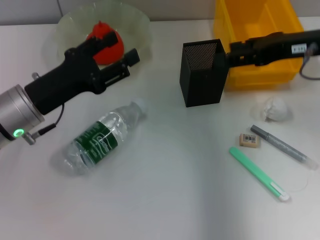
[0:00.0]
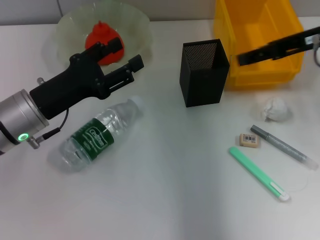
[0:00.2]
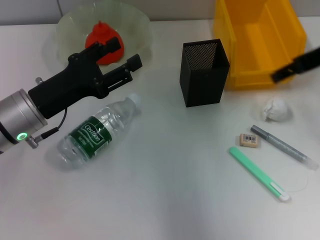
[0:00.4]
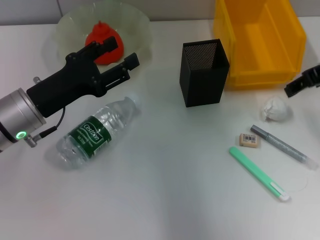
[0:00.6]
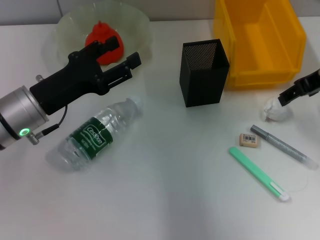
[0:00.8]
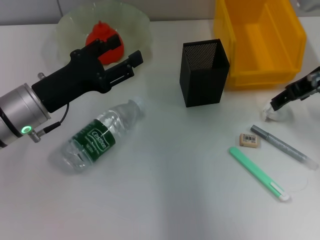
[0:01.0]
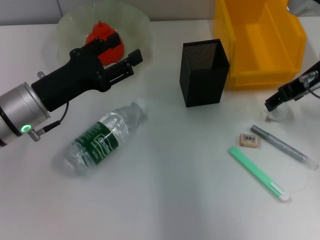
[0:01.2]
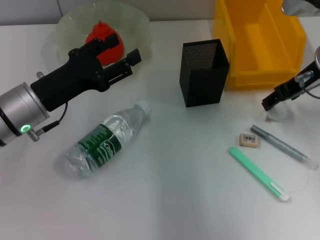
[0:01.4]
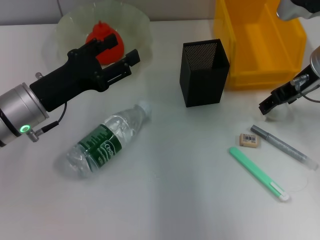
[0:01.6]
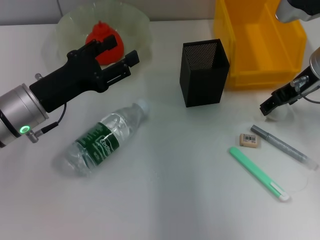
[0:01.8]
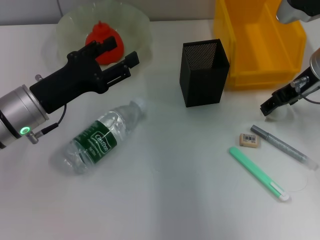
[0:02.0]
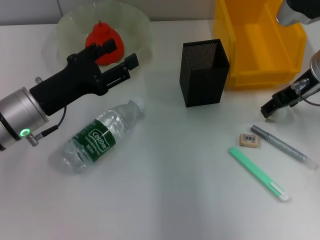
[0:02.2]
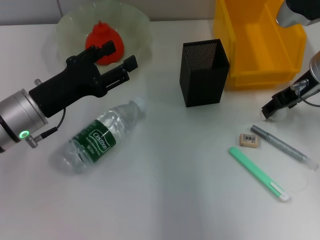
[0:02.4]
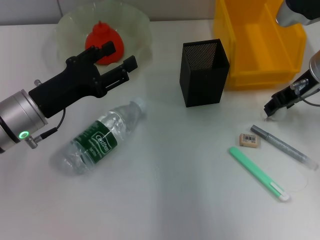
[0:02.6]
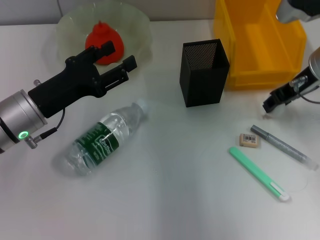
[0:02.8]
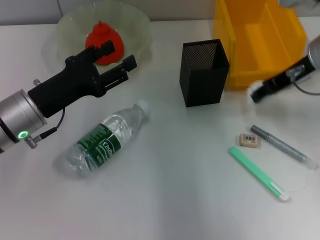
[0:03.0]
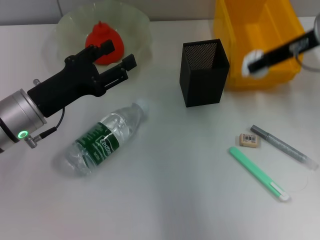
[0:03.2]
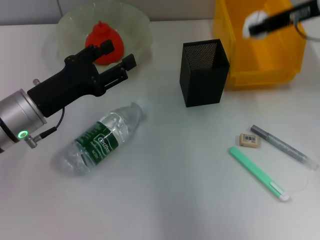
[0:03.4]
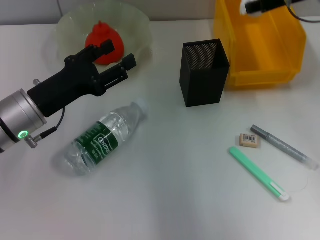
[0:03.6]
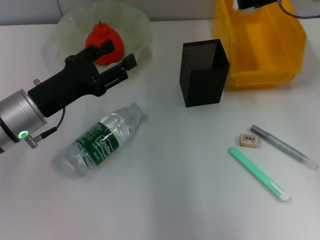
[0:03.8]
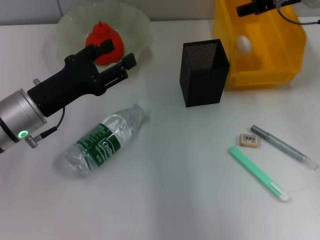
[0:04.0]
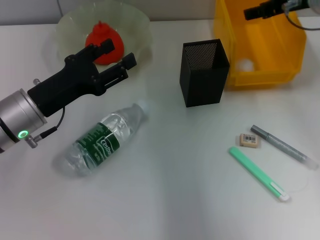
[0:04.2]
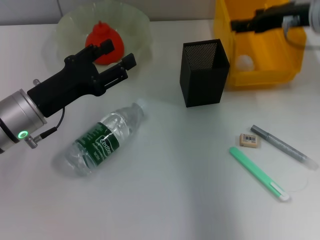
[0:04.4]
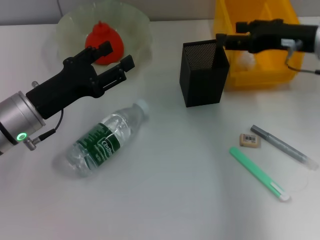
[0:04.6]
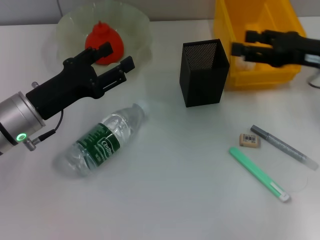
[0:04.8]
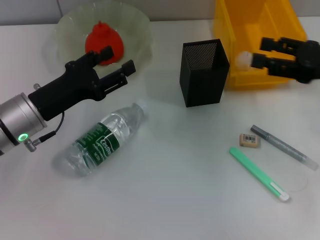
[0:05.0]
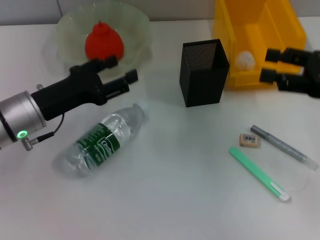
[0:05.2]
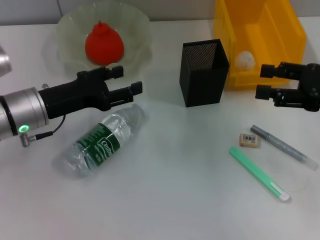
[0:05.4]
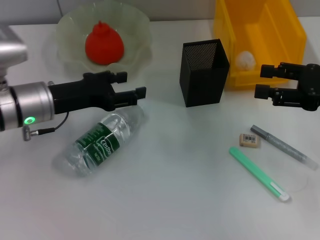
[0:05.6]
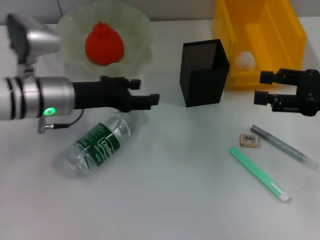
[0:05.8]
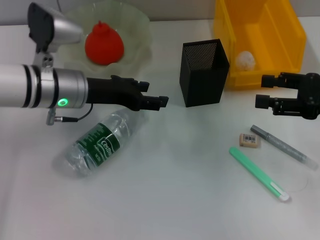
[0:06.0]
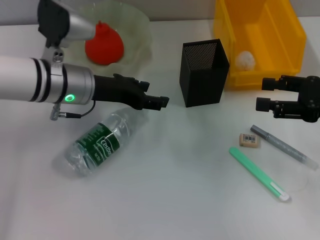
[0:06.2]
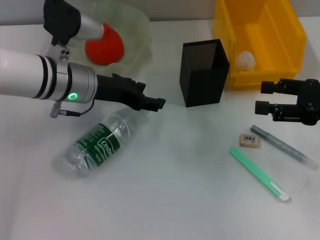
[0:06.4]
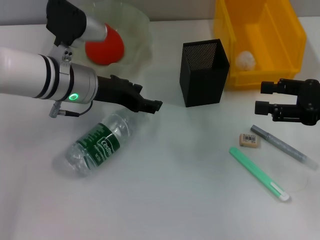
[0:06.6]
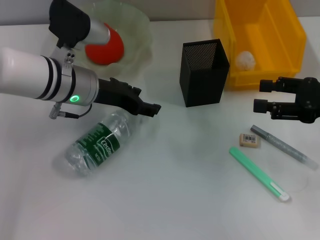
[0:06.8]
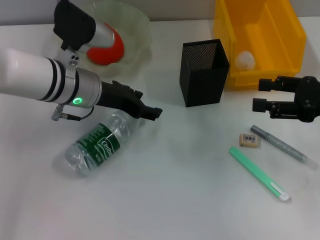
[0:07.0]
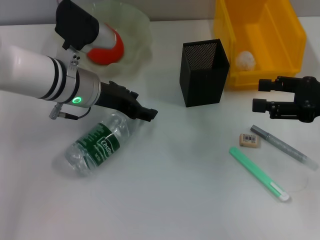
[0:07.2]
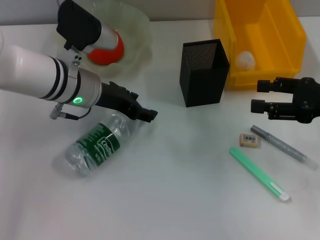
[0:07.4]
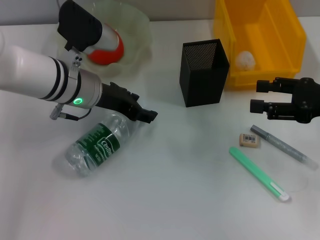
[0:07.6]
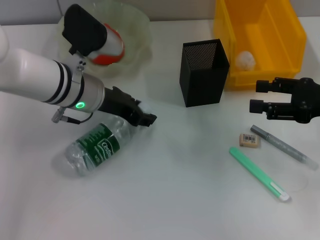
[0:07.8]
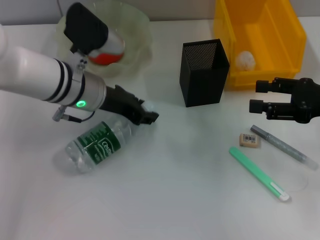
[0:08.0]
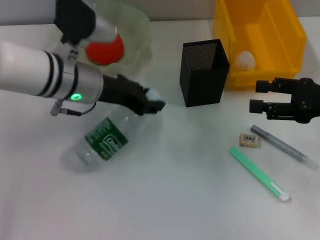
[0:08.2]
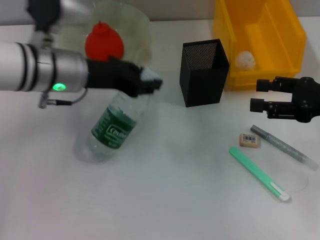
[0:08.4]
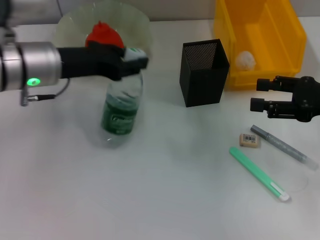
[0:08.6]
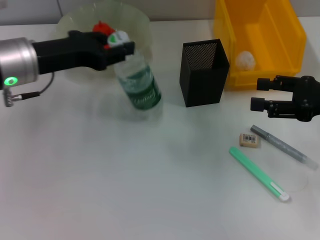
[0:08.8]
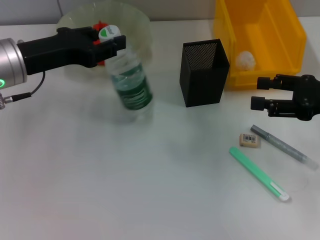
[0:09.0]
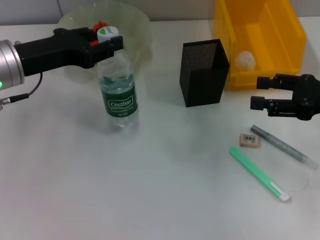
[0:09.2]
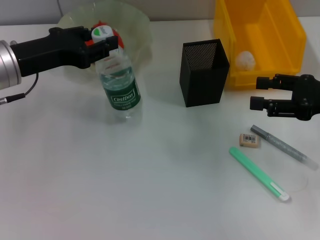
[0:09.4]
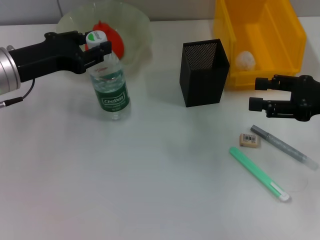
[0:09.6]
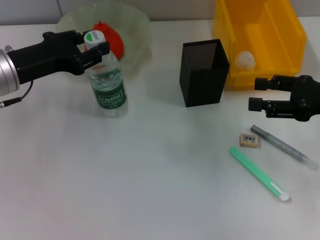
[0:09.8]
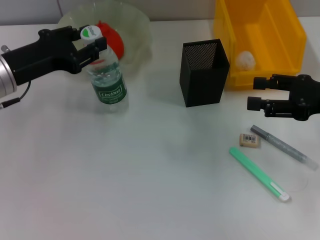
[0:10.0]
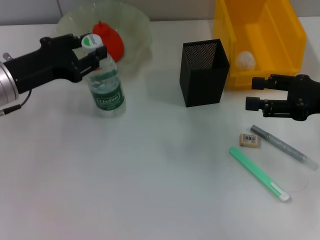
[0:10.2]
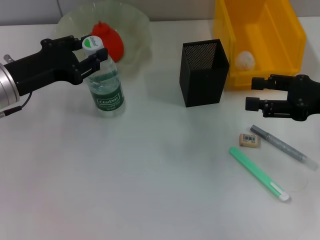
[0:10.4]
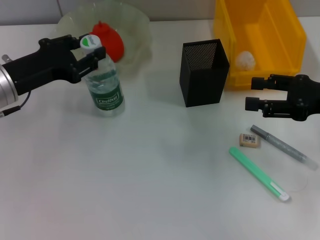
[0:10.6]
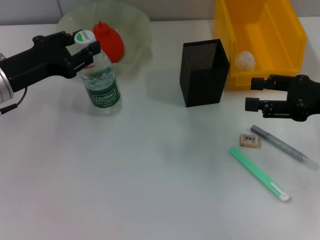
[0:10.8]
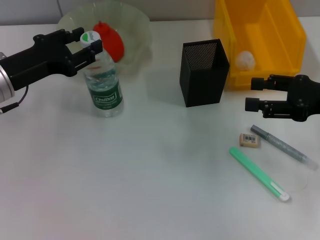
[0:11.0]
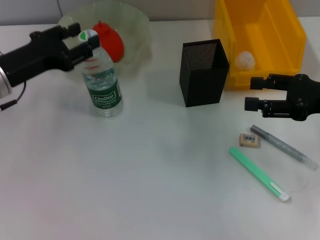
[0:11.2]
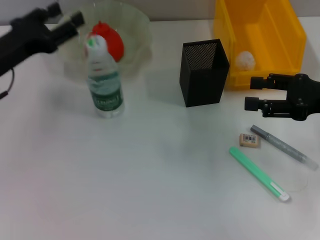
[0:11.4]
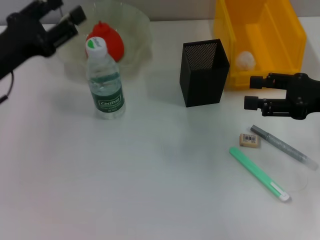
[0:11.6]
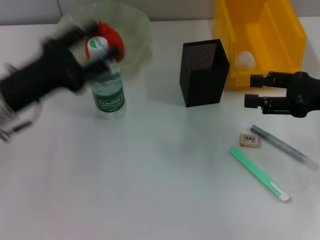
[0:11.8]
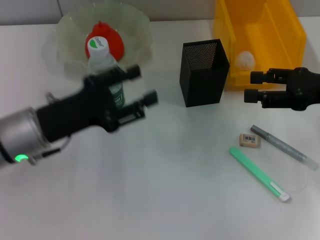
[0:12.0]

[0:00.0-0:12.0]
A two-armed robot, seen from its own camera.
Step, 0:00.0 to 0:02.6: Grab the paper ball with the right hand.
Step, 0:02.8 to 0:04.8: Place the paper ball into the trash can with the right hand.
Step, 0:05.0 to 0:07.8: Grab the water bottle with the left hand.
Step, 0:08.0 to 0:11.2: Place the water bottle on the table with the left hand.
0:00.0 to 0:01.6: The right gripper shifts by about 5 cm.
0:01.6 to 0:03.0: The right gripper closes.
0:03.0 to 0:04.4: The right gripper opens up.
0:04.4 to 0:06.0: The left gripper moves forward and to the right, some 10 cm; the right gripper moves backward, to the right and downward, about 15 cm.
0:06.0 to 0:07.6: The grippers stay close to where they were, moving slightly.
0:07.6 to 0:09.0: The left gripper goes approximately 10 cm to the left and upward, and closes up.
0:09.0 to 0:10.4: There are only small adjustments of the grippers.
0:10.4 to 0:12.0: The left gripper ends up some 5 cm from where it was.

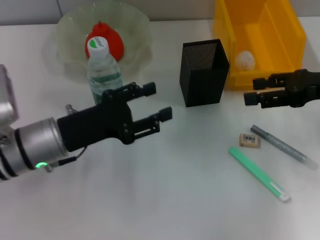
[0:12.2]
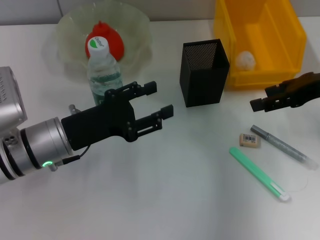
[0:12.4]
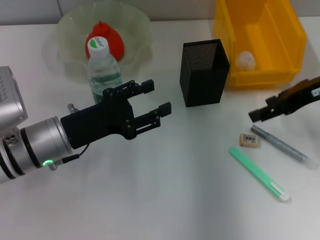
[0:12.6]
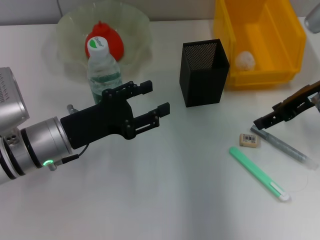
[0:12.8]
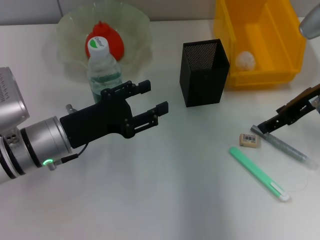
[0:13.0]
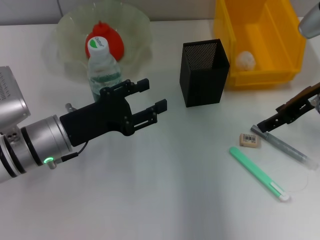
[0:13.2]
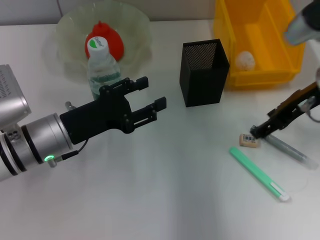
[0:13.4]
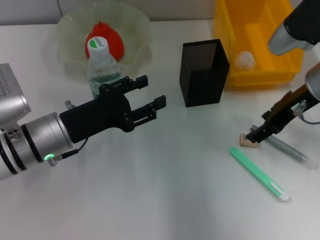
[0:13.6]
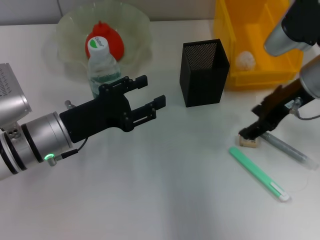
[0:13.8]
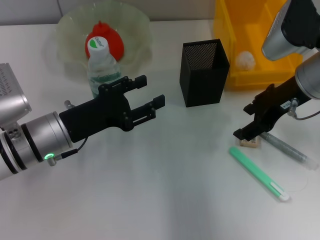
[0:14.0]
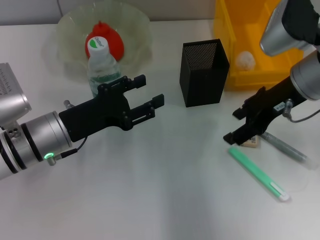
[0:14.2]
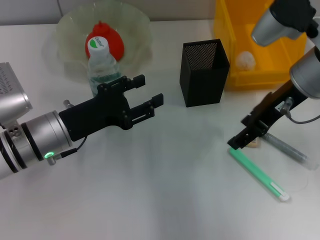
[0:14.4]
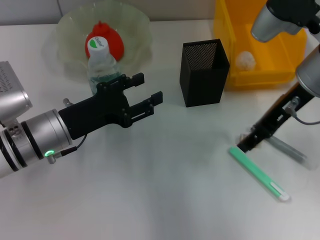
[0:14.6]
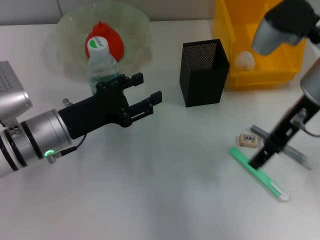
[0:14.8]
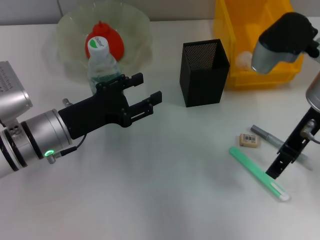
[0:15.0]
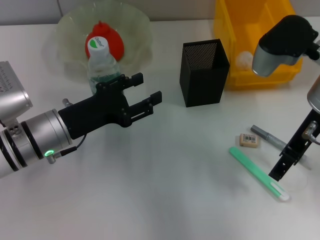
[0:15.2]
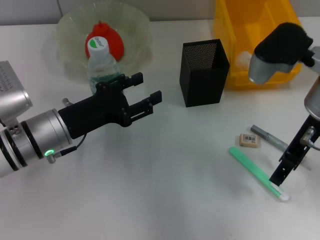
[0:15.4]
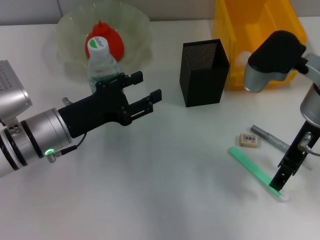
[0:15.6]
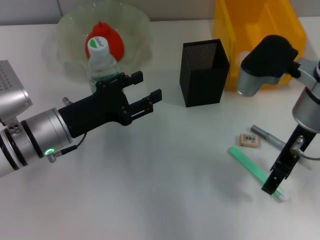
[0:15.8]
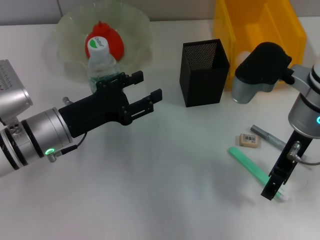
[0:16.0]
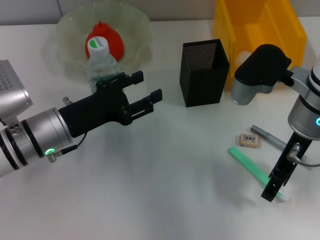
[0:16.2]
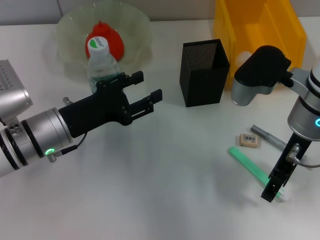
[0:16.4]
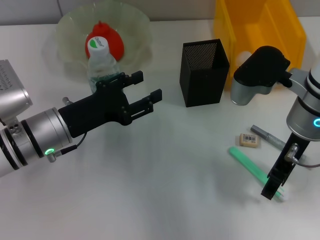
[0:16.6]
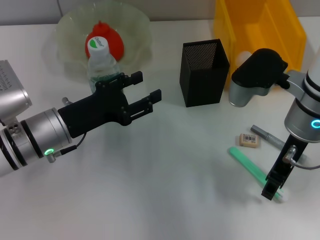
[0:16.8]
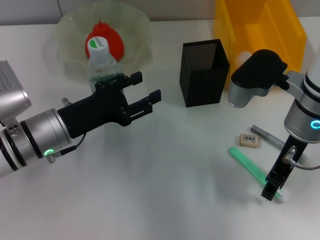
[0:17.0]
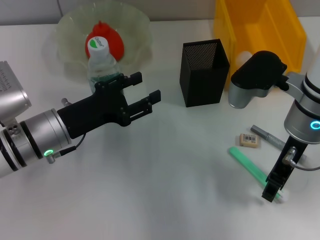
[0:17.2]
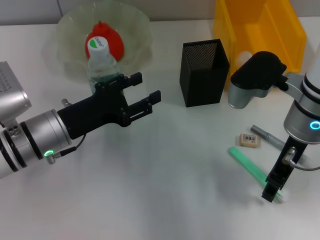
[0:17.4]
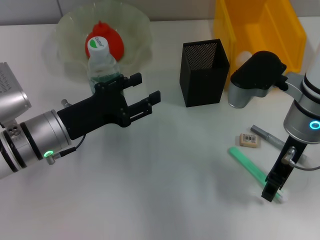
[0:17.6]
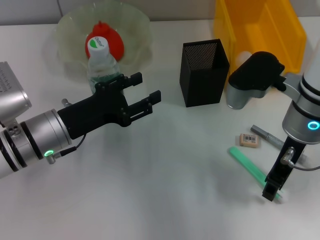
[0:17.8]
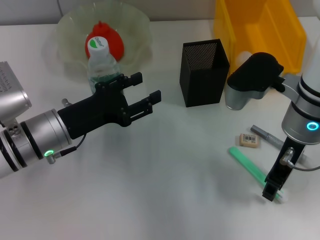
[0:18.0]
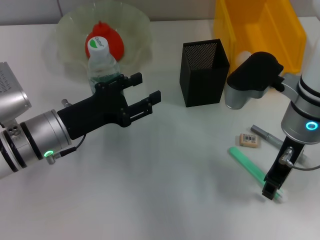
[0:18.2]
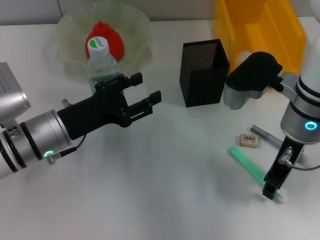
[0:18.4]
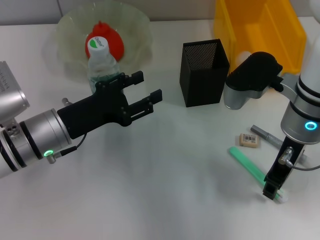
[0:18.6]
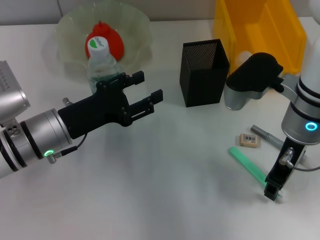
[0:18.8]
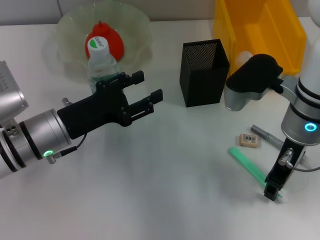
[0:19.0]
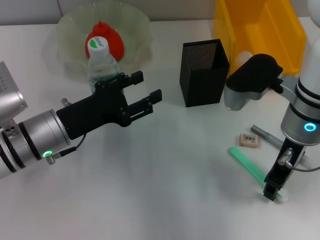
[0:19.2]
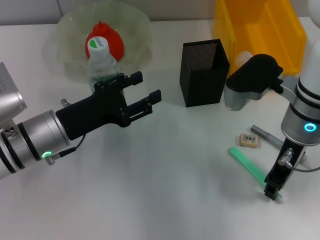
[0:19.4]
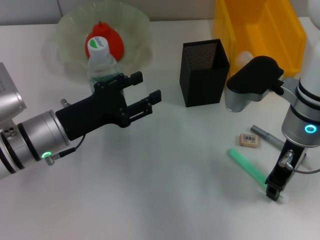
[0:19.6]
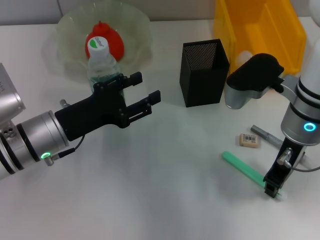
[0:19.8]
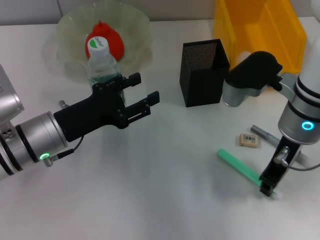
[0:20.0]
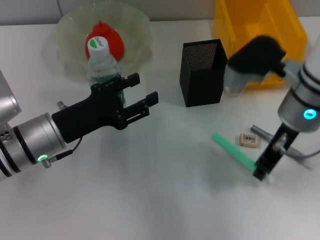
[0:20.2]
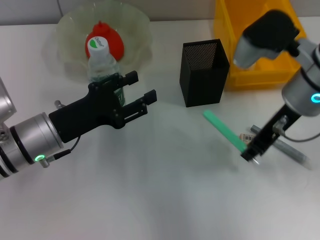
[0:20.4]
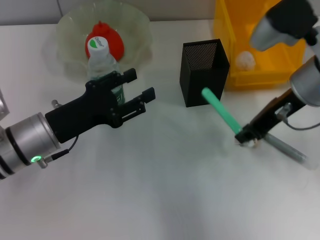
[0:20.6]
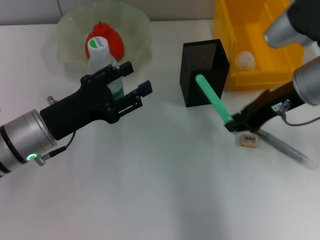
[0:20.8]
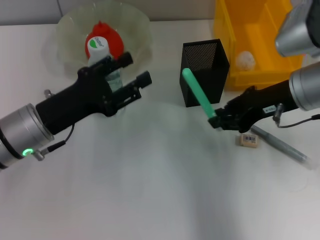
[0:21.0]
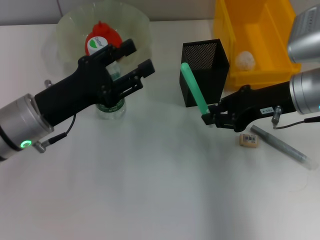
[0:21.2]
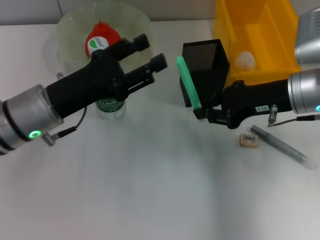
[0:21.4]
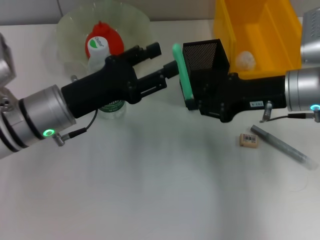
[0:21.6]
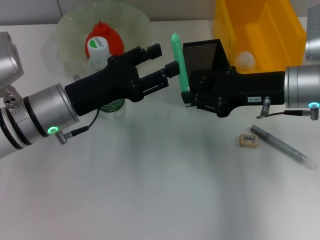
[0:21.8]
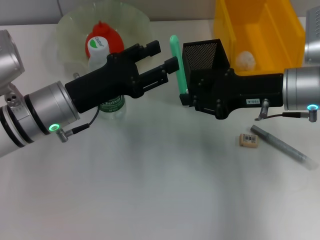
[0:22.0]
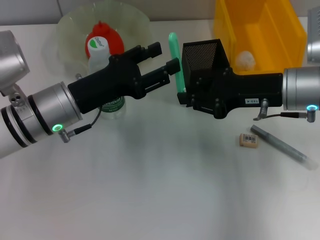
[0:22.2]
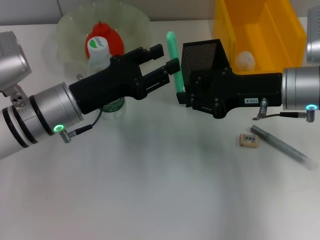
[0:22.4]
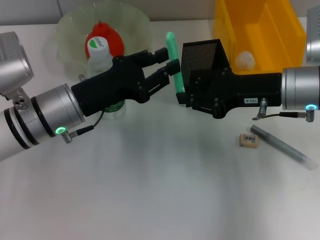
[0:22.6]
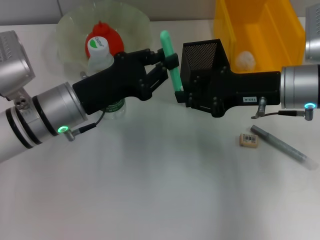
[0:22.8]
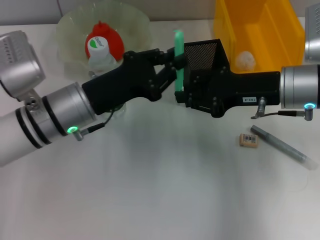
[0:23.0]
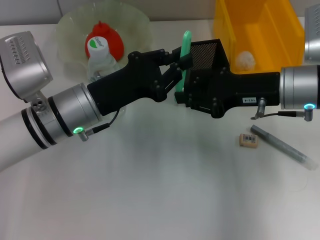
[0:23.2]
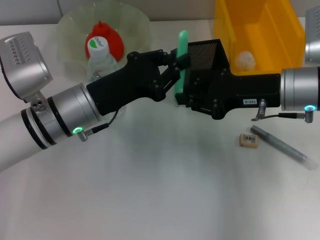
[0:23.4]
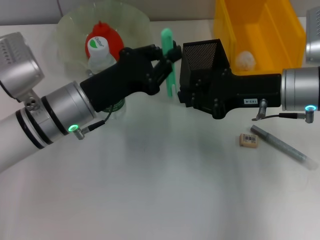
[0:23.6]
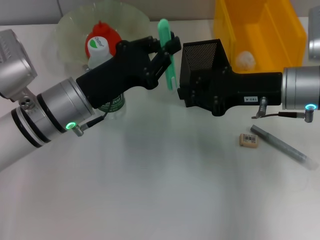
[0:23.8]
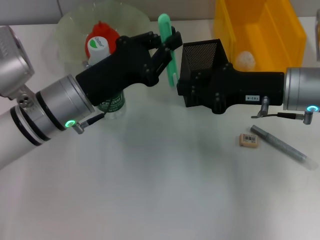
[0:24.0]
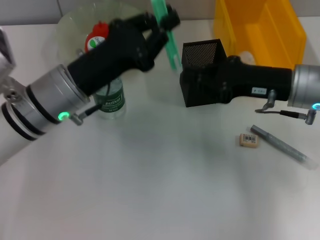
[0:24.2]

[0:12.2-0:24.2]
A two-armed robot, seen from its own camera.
Step, 0:12.2 to 0:19.0: Grab the blue utility knife with the right hand.
Step, 0:19.2 to 0:23.6: Pass the blue utility knife from the left hand to the right hand.
0:12.2 to 0:13.8: The right gripper shifts approximately 10 cm to the left.
0:15.2 to 0:16.6: There are only small adjustments of the grippers.
0:16.6 to 0:18.2: The right gripper closes.
0:18.2 to 0:19.8: Neither gripper changes place.
0:19.8 to 0:21.2: The right gripper shifts by approximately 5 cm.
0:22.6 to 0:24.2: The left gripper closes.
